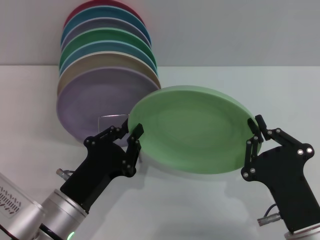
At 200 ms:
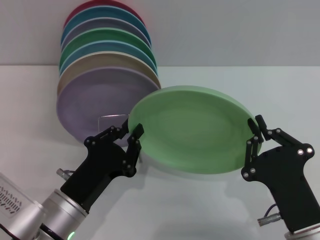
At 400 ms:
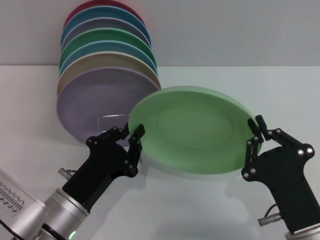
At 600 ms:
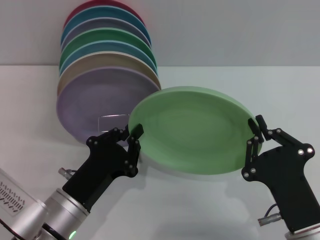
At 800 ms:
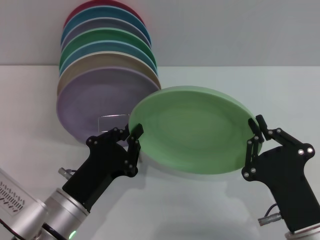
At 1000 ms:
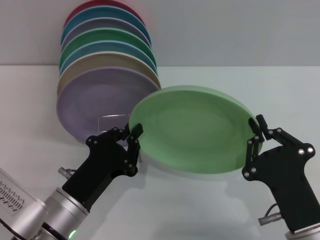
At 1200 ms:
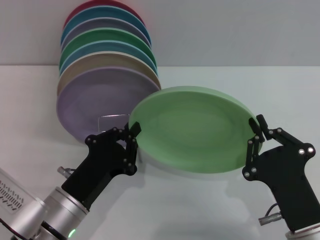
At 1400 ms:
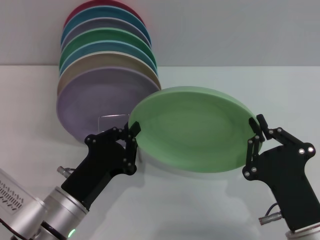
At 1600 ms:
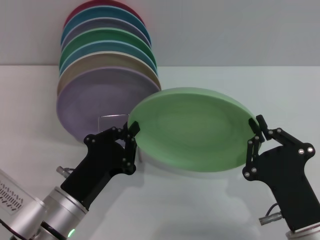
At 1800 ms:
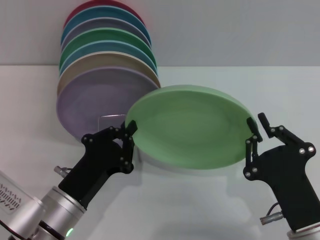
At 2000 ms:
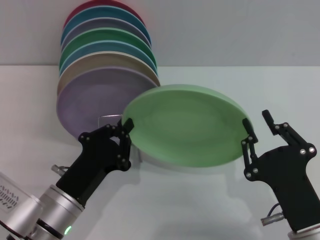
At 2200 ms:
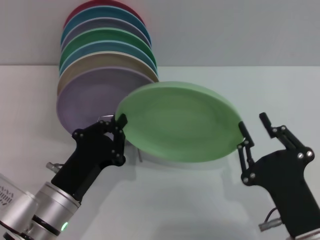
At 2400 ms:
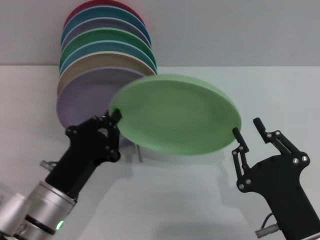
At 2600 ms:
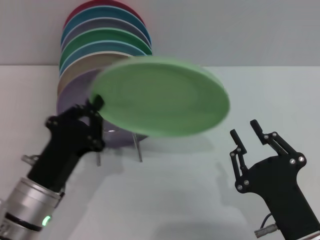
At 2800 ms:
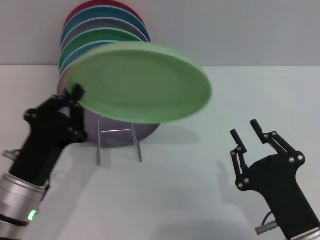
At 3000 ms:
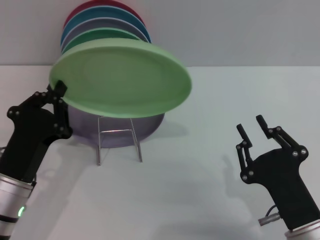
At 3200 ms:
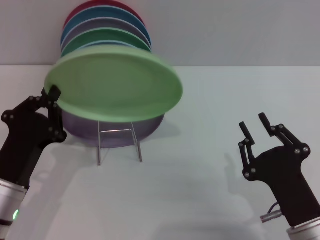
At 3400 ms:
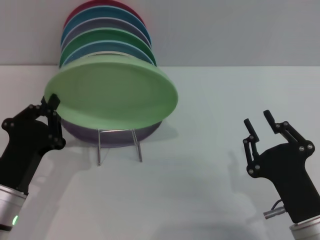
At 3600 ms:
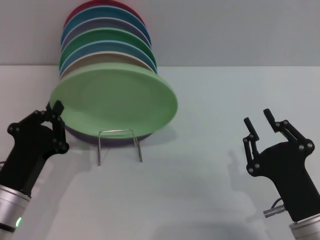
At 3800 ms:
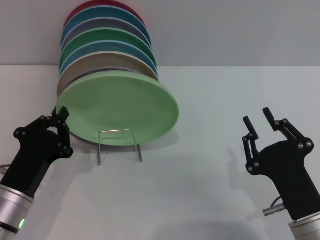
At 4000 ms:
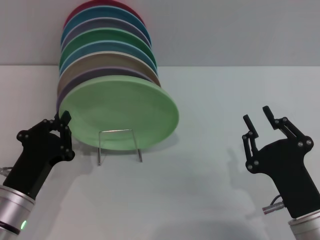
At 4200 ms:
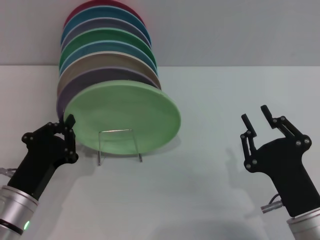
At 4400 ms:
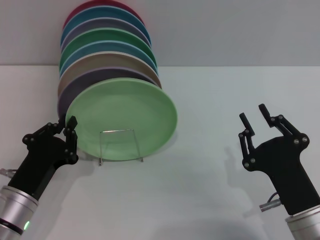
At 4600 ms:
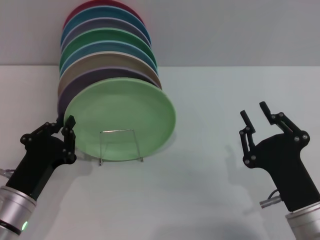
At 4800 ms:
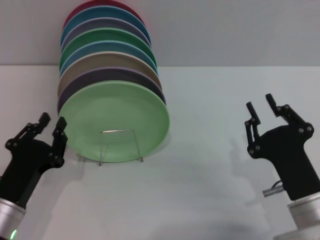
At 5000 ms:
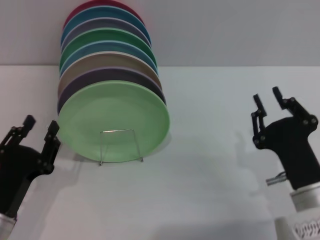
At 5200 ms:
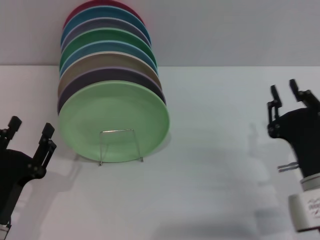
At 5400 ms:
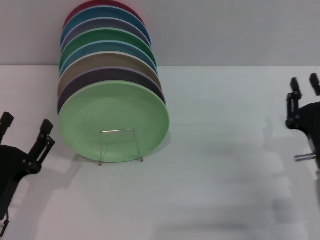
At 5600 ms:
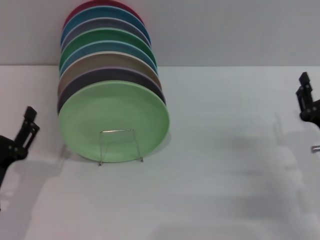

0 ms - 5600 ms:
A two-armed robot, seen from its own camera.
Task of the whole recording: Grip the plate with one hand, pass it to the other, then set it on the shelf.
Step, 0 ms - 2200 ms: Pass the plate from the right gripper to the left gripper.
Step, 2600 ms - 4600 ms: Place the plate on the shelf with the left gripper.
0 ms - 1400 ms: Neither gripper changes place.
1400 ms - 2800 ms: The right gripper opens its fingers.
4200 ms - 5600 ms: The left gripper opens up, while the right gripper is displaced to the right and forward by roughly 10 cm.
